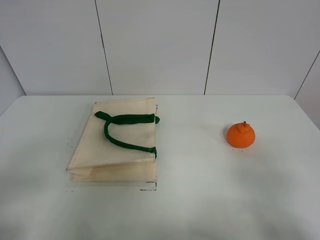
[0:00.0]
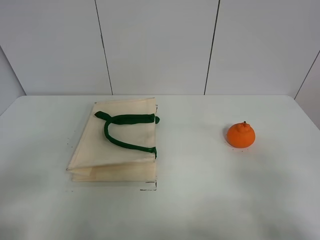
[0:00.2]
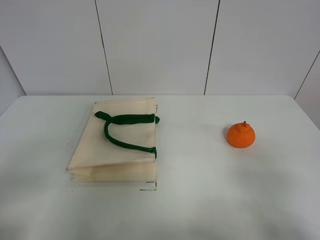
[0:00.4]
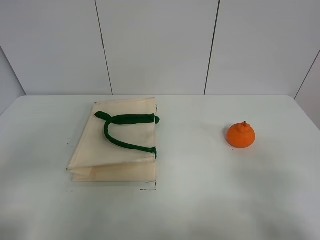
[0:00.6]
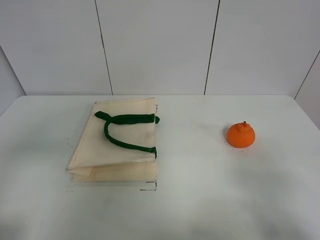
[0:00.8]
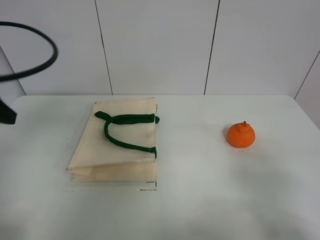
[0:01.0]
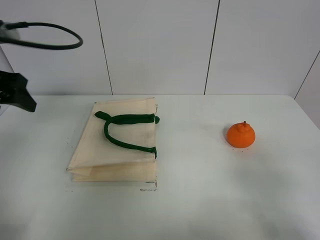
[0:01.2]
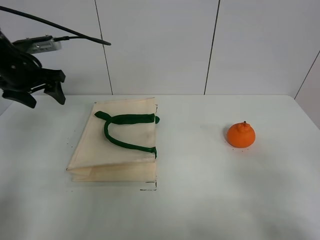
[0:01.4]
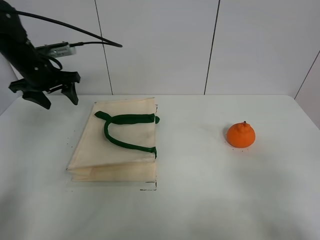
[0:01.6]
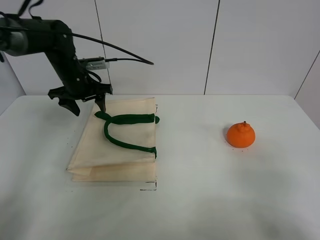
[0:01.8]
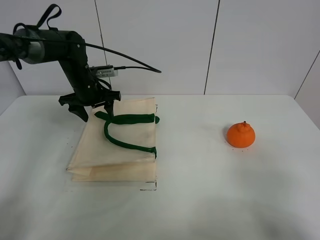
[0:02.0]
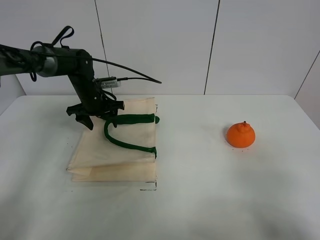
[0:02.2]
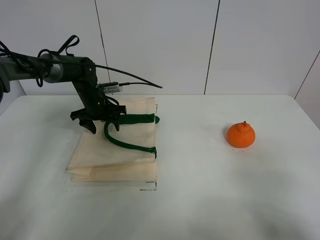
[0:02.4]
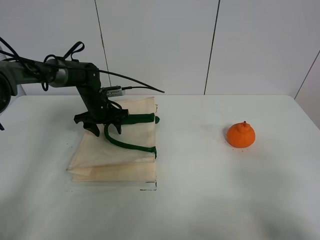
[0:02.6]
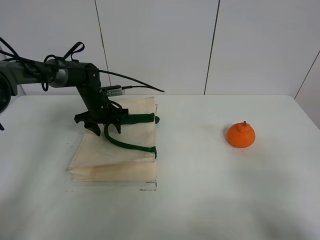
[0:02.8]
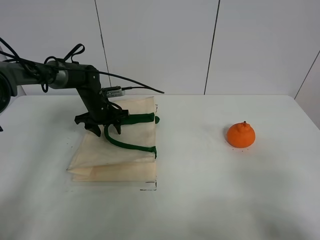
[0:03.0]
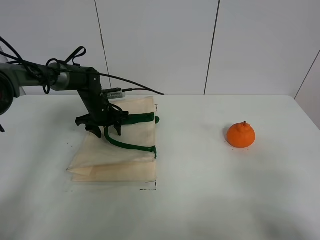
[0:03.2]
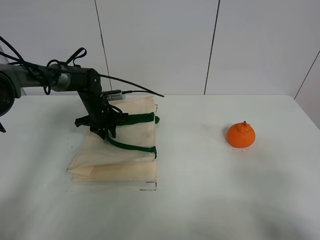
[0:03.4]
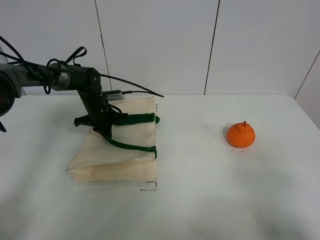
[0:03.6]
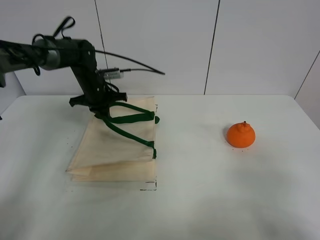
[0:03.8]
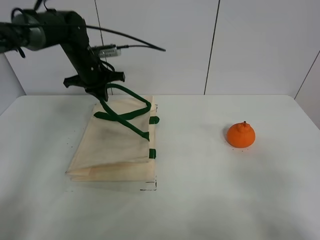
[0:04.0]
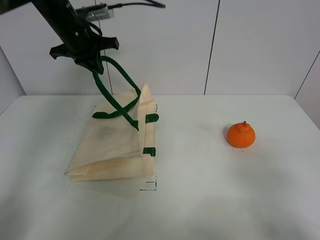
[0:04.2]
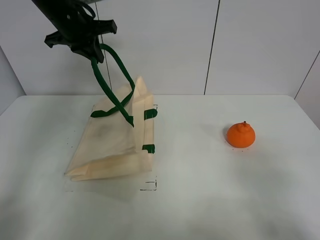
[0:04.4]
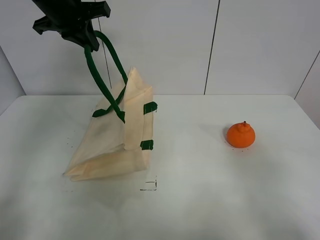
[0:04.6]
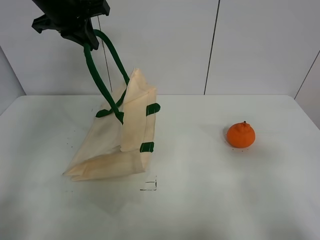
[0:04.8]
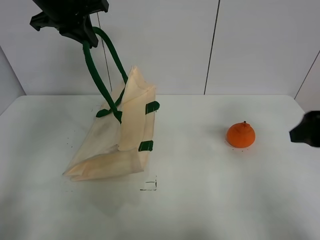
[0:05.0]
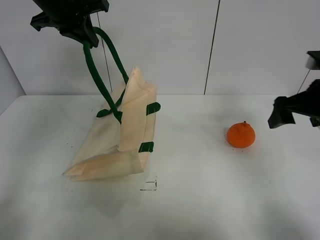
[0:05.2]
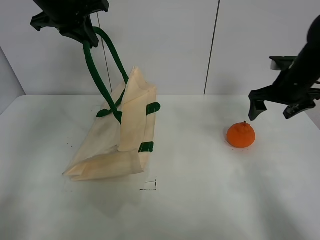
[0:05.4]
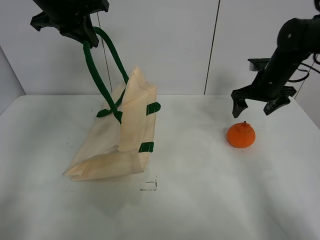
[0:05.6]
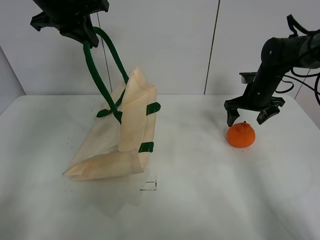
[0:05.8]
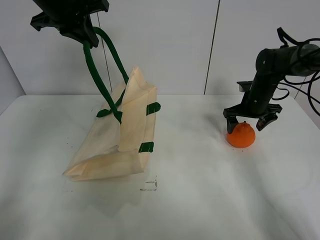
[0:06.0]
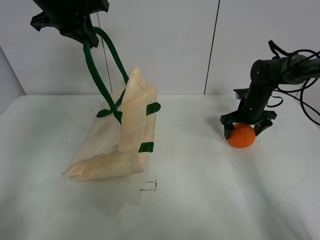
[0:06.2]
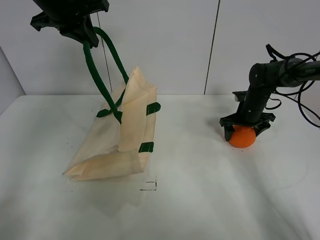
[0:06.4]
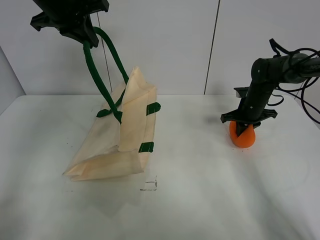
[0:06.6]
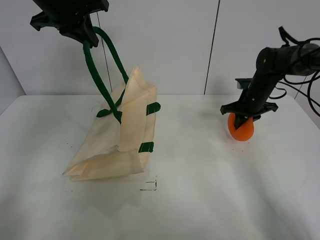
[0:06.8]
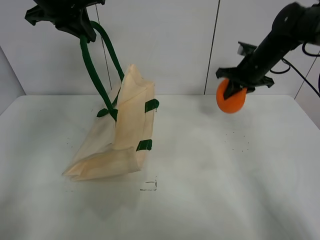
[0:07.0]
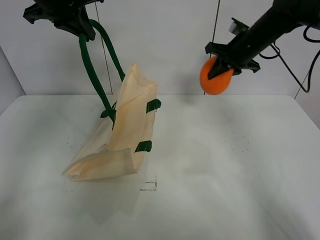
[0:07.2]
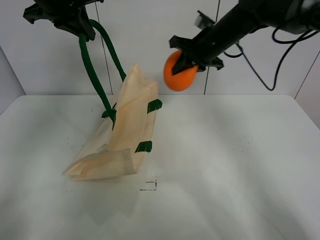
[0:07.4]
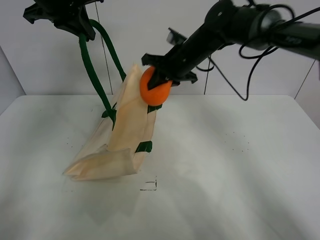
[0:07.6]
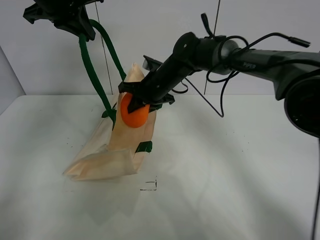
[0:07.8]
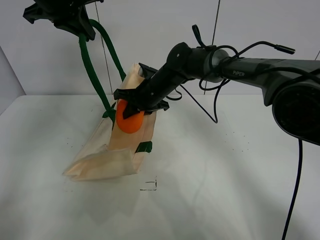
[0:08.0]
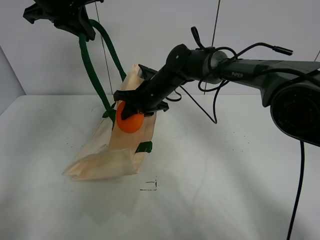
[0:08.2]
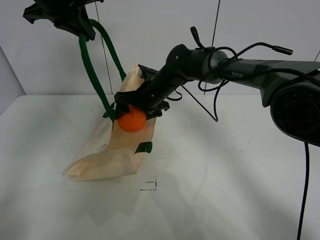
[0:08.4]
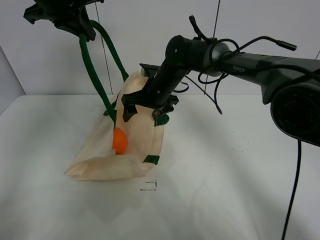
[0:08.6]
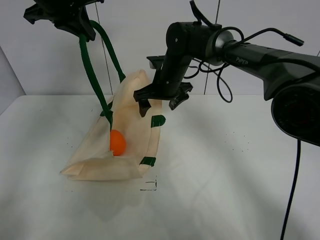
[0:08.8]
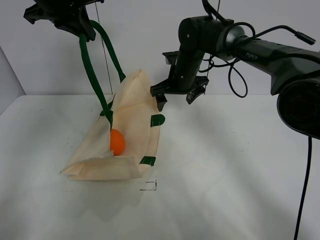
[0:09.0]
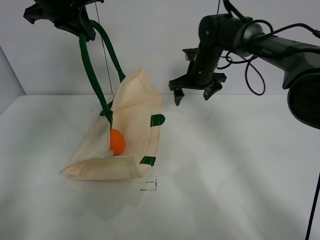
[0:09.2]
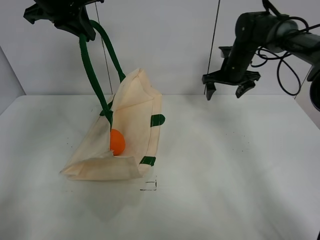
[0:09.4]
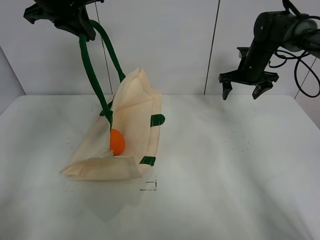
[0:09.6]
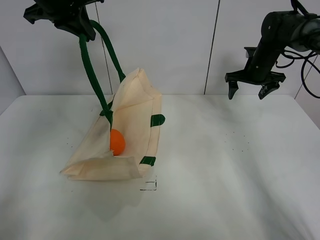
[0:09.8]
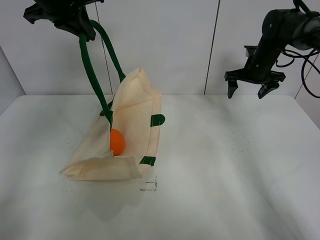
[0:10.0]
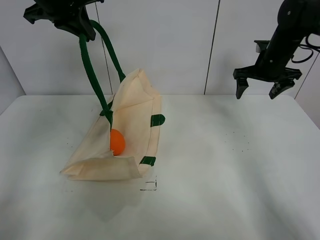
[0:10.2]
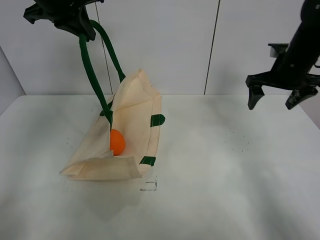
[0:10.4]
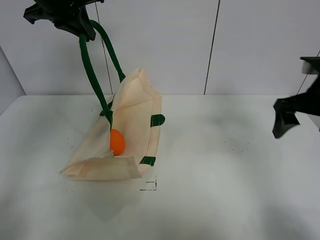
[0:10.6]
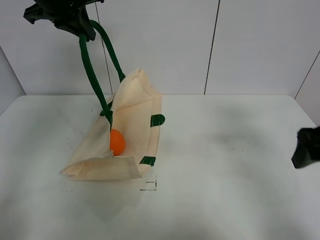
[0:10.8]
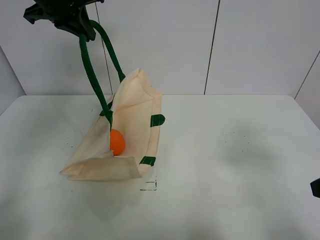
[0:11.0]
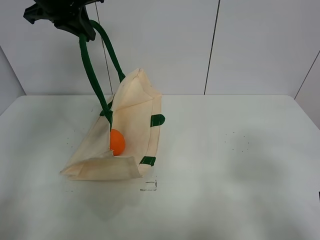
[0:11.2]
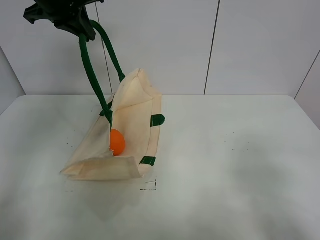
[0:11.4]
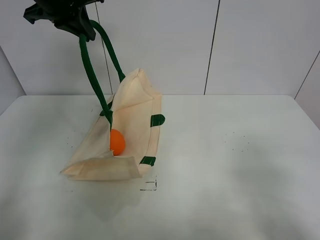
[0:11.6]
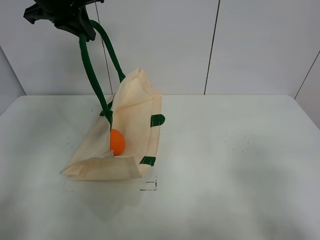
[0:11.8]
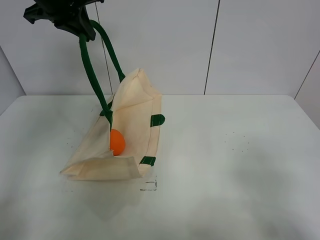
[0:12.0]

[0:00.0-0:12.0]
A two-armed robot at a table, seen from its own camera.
Task of the whole recording: open the white linen bag and put the orange in the bag.
Step, 0:00.0 to 0:04.8: Lift the handbag with left gripper.
Step, 0:05.0 to 0:06.4: Grasp the orange with right gripper.
Step, 0:06.6 to 0:08.4: Place the orange in the handbag with right gripper.
0:00.0 to 0:01.6: The left gripper shifts roughly 40 cm forward.
0:01.6 to 0:03.0: The left gripper goes about 15 cm downward and to the right.
0:03.0 to 0:04.4: The left gripper goes about 25 cm upward, and closes.
0:04.4 to 0:06.0: The right gripper heads forward, covering roughly 40 cm.
0:06.0 to 0:07.6: The right gripper heads to the left and upward, covering approximately 25 cm, and closes up.
0:07.6 to 0:09.0: The right gripper moves about 5 cm to the left and comes back, and opens its fingers.
0:09.0 to 0:10.4: The right gripper shifts some 20 cm to the right and backward.
0:10.4 to 0:12.0: The right gripper goes about 35 cm backward.

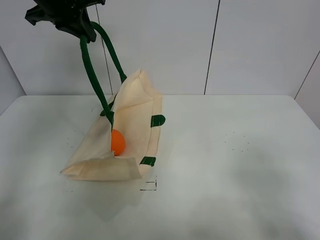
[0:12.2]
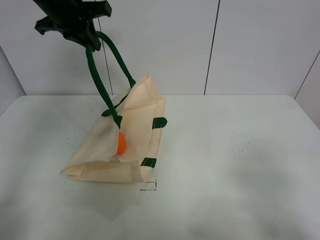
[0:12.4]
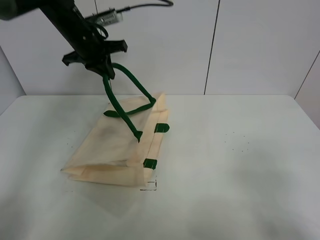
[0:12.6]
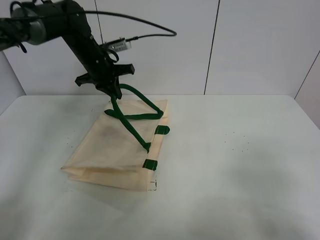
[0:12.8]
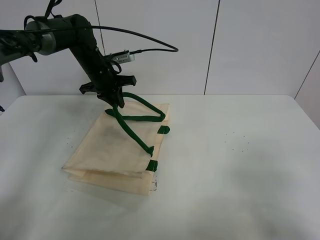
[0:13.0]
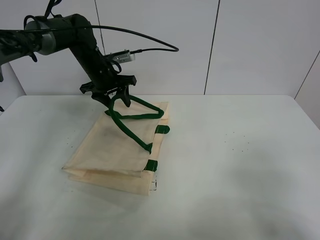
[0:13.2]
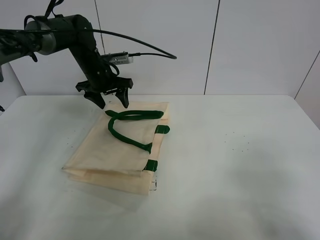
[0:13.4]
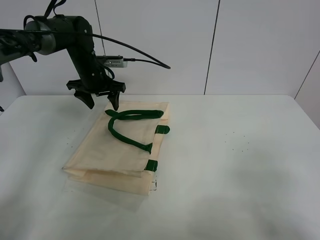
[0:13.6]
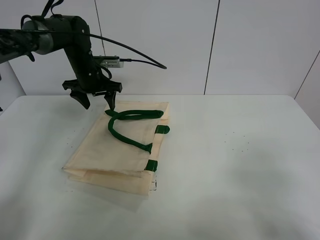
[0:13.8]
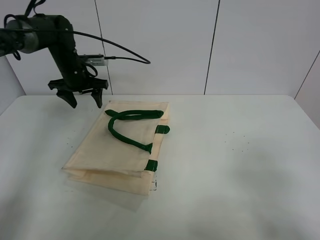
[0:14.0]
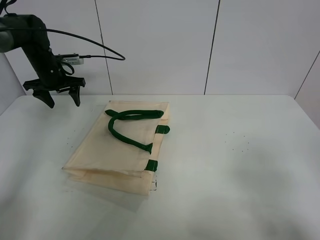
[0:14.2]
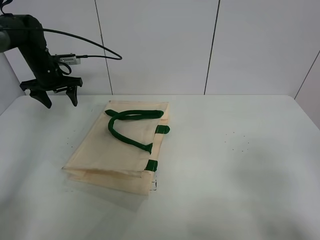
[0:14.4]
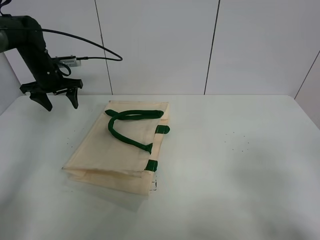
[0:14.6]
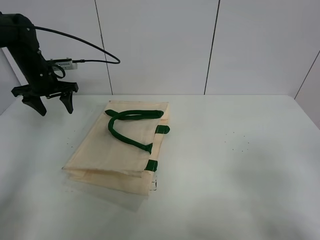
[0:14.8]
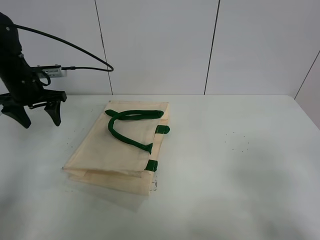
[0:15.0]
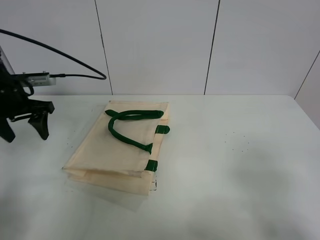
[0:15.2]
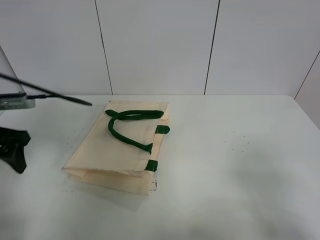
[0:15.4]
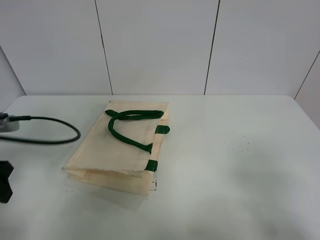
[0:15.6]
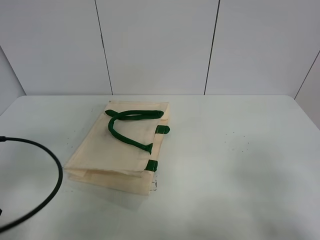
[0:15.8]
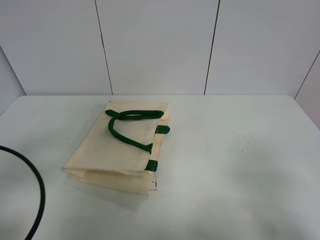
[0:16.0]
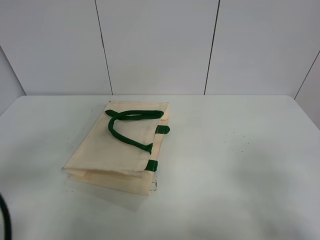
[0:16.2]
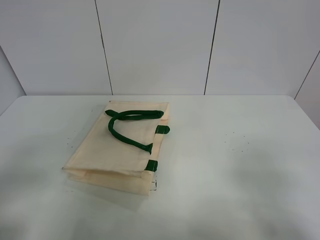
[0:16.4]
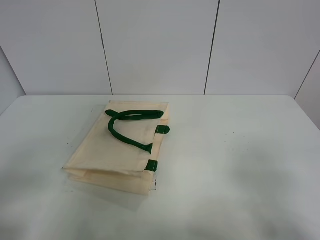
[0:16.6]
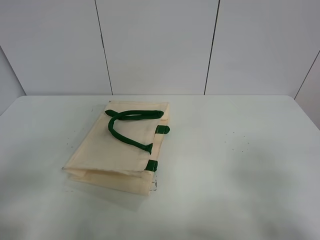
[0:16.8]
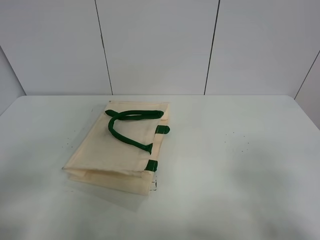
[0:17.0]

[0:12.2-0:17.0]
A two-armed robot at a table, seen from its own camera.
Task of the whole recording: open the white linen bag and put the orange in the bag.
0:12.2 to 0:13.8: The left gripper shifts about 20 cm downward and forward, and opens its fingers.
0:13.8 to 0:15.4: The left gripper heads backward and to the left, covering approximately 30 cm.
0:15.4 to 0:17.0: The left gripper shifts about 20 cm backward.
